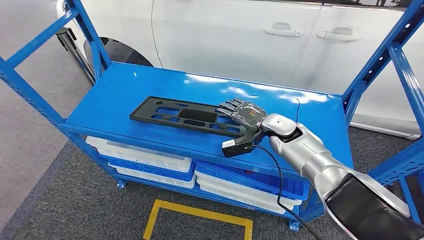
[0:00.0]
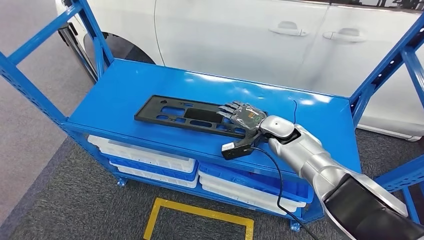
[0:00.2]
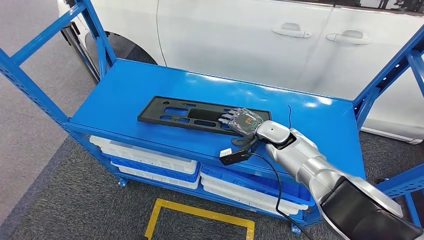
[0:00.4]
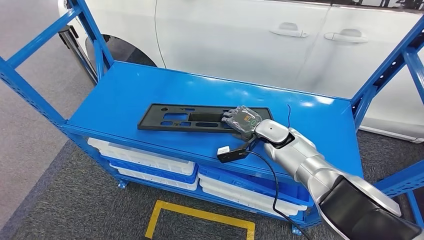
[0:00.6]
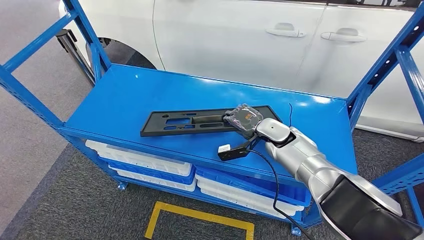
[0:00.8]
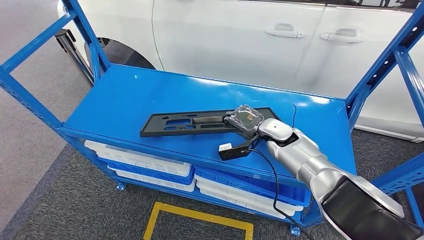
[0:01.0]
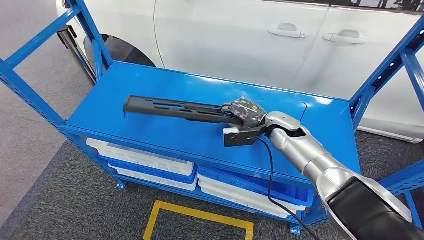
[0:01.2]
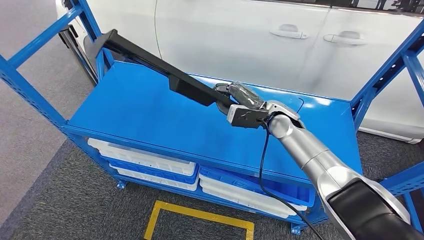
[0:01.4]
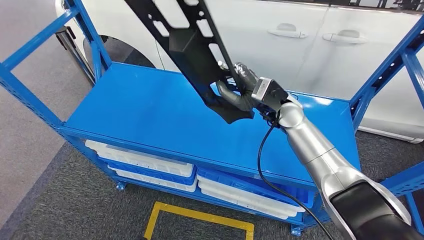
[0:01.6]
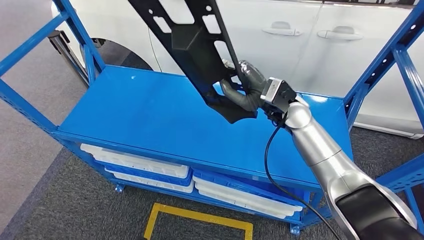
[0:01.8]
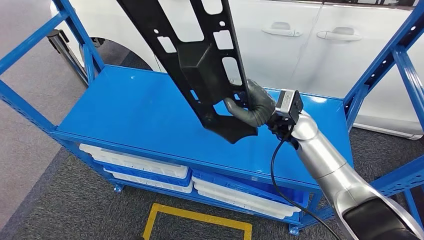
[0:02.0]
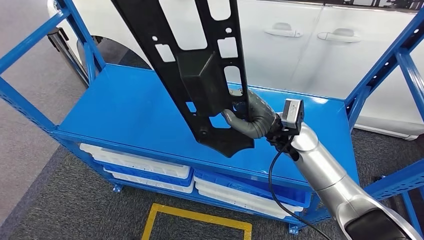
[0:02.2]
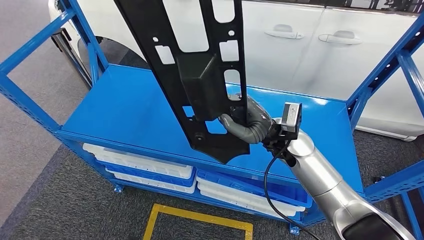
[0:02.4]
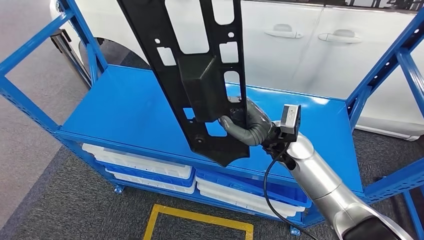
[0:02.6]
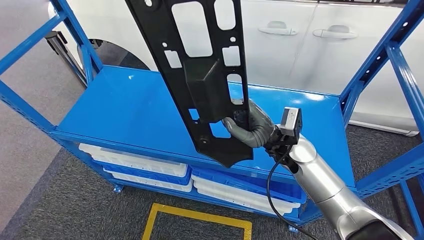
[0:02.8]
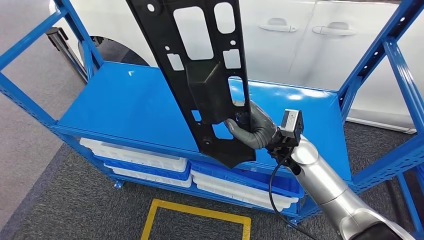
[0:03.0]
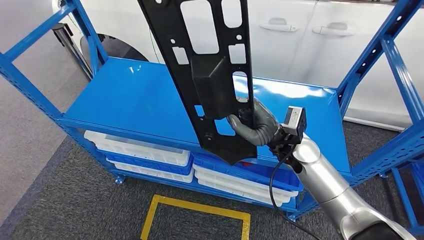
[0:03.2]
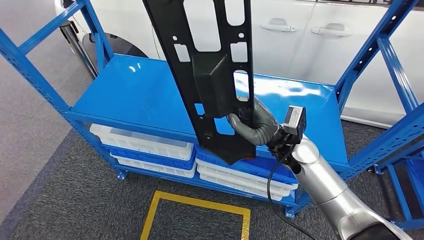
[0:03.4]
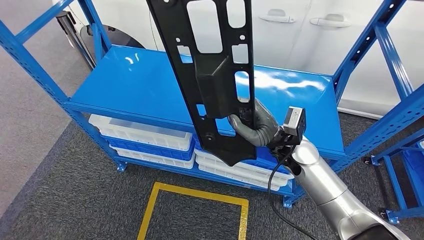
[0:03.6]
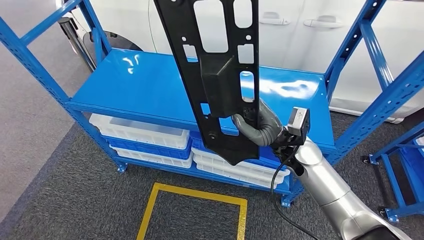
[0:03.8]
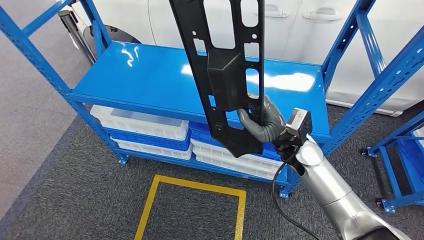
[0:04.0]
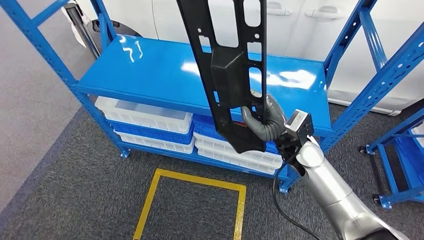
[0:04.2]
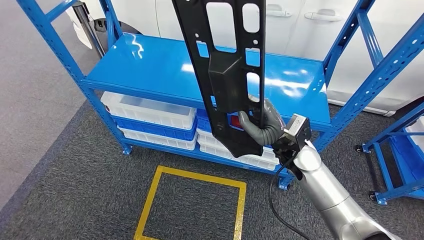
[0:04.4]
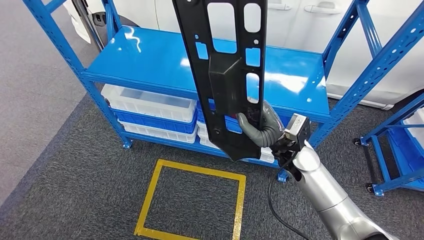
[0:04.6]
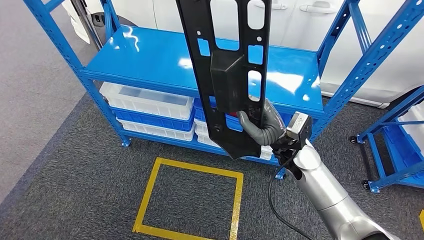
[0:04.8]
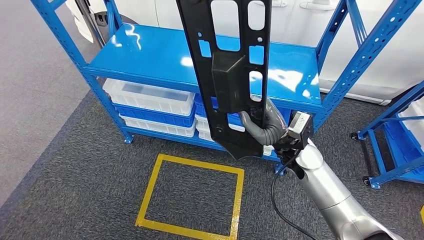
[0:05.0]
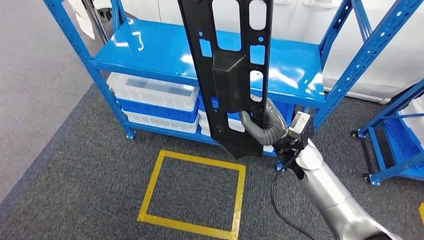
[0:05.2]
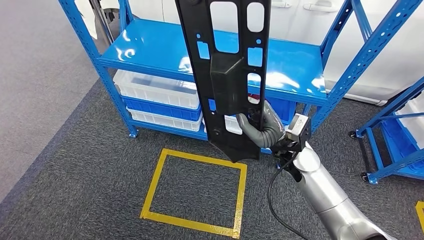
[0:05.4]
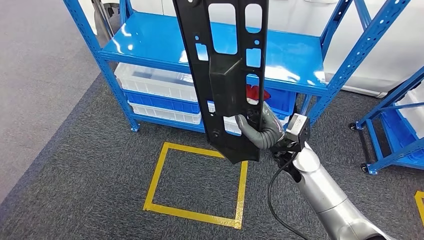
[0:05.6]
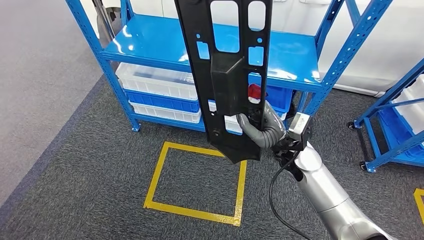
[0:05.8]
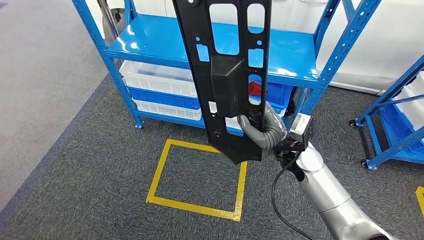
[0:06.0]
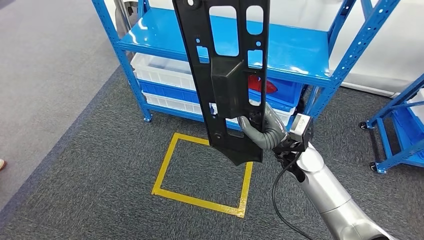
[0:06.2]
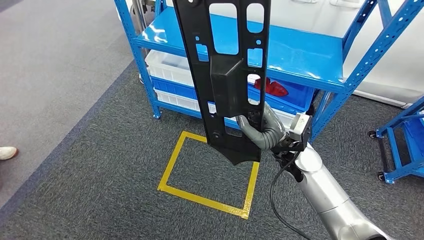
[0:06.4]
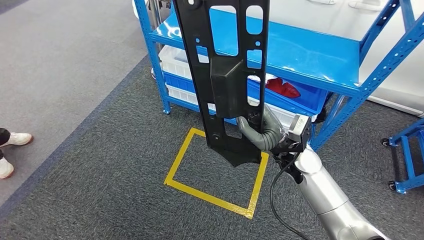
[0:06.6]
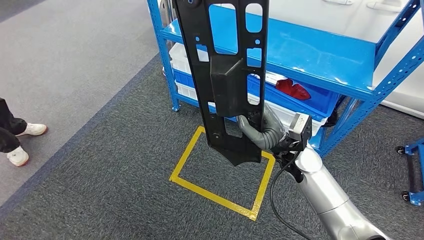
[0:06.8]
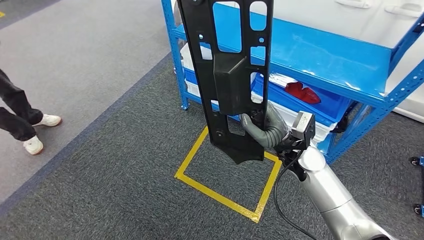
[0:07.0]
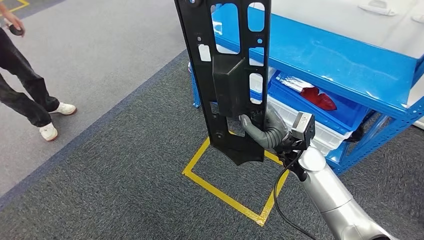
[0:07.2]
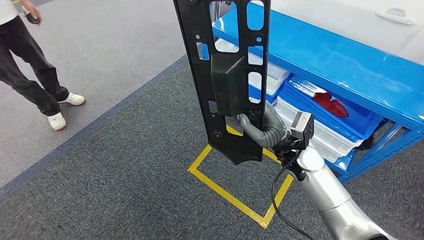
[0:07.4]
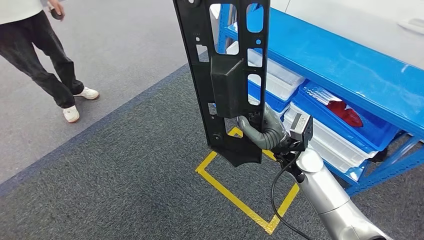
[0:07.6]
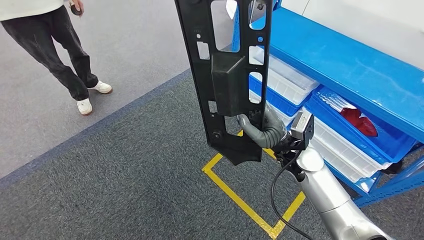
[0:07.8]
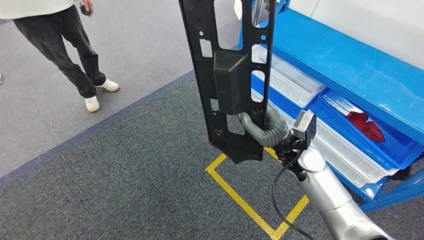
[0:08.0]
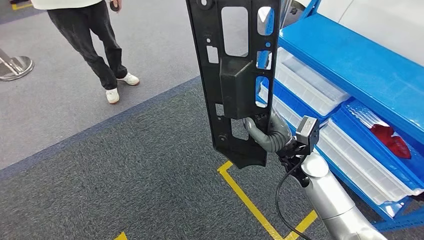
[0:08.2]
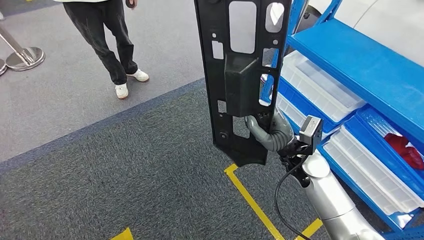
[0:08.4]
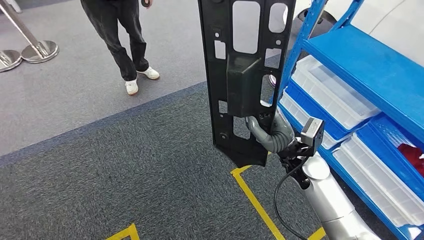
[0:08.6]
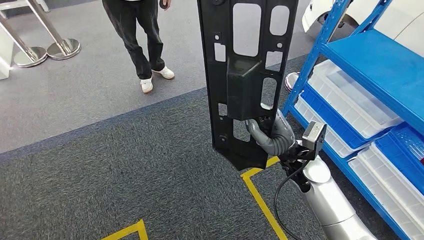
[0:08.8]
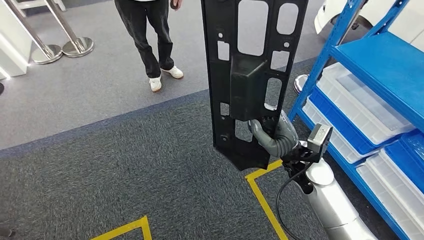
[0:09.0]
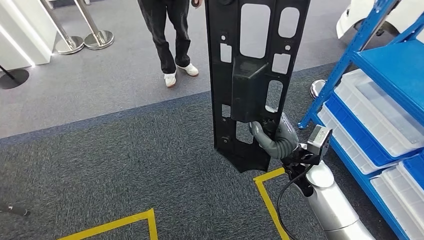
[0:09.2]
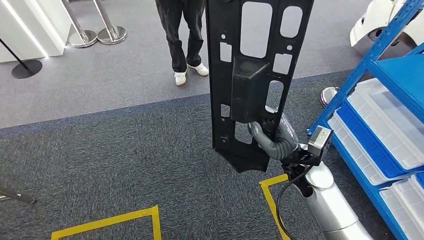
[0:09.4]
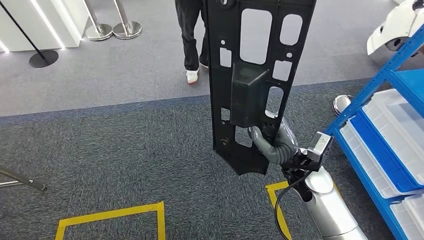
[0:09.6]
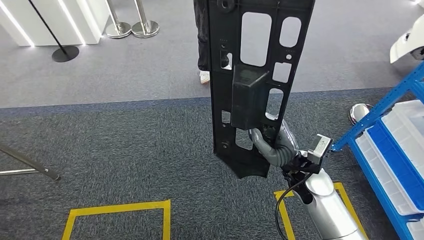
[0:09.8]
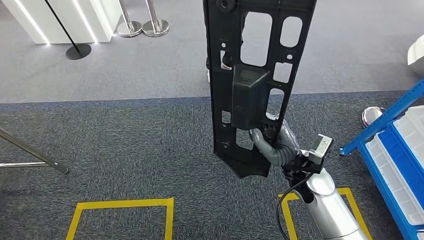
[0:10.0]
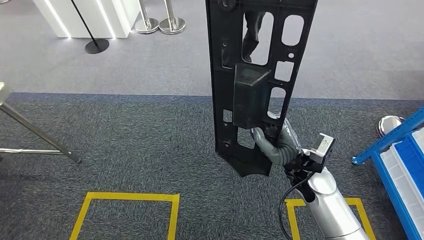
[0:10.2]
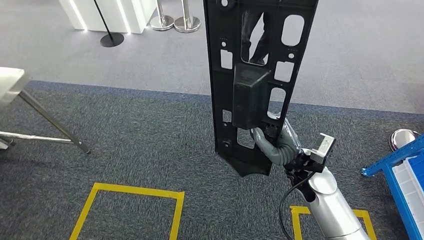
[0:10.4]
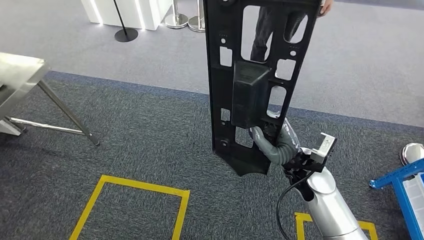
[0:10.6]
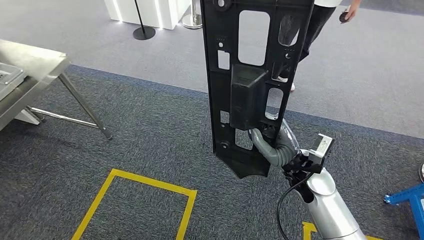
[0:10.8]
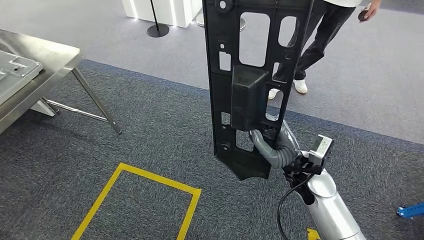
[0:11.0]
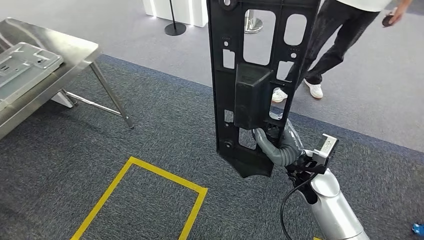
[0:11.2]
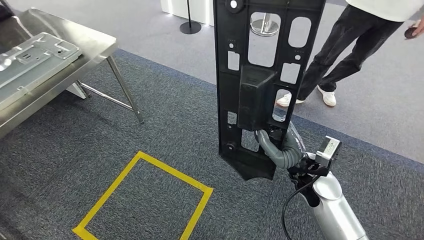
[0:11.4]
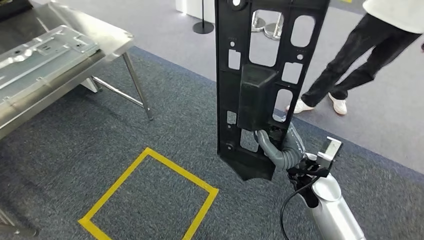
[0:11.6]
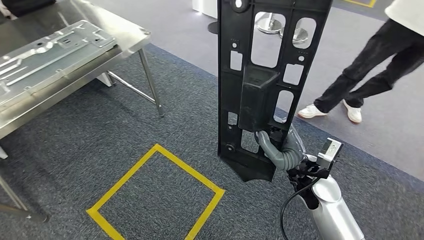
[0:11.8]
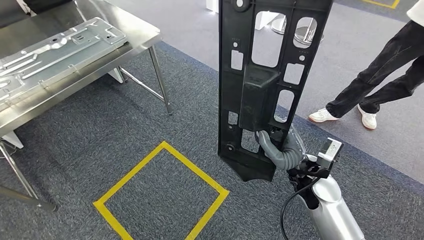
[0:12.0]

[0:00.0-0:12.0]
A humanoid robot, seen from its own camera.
Step, 0:00.0 to 0:04.2: Pick up the large material from the shelf.

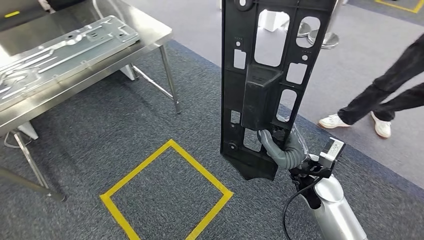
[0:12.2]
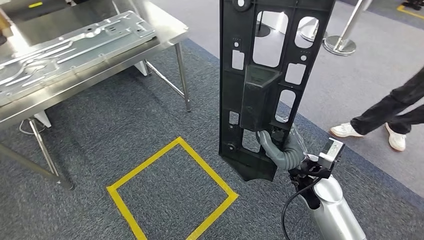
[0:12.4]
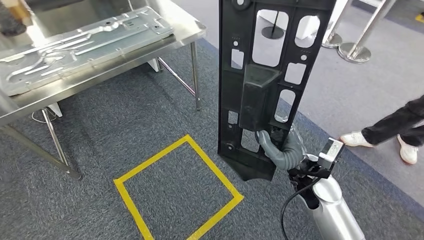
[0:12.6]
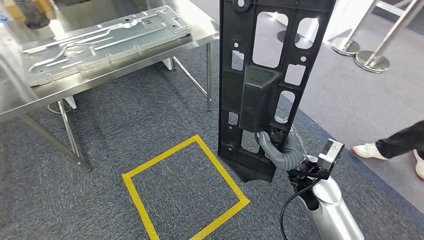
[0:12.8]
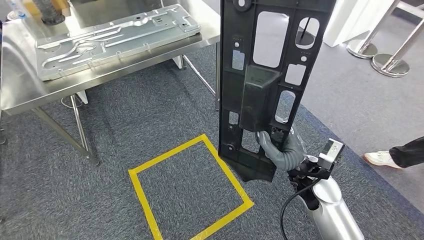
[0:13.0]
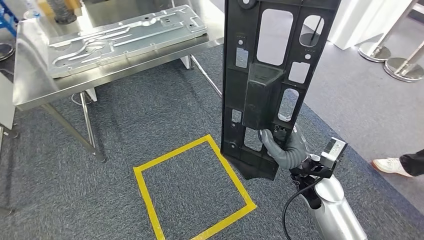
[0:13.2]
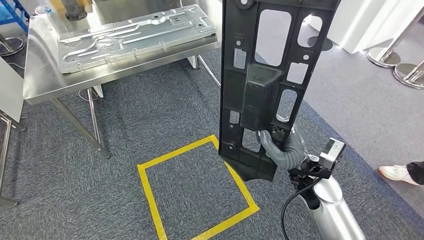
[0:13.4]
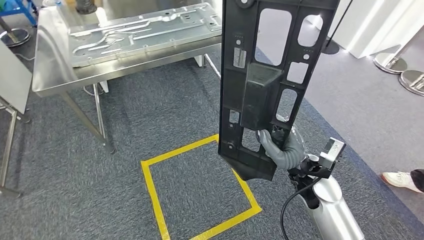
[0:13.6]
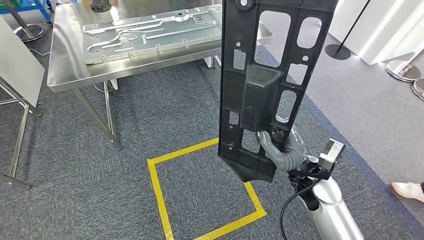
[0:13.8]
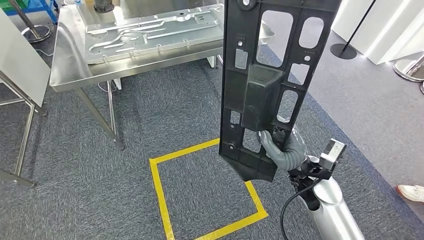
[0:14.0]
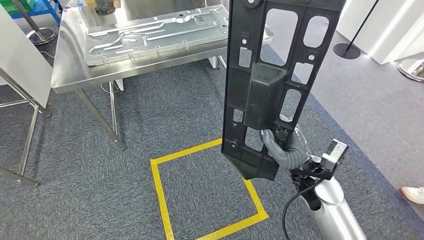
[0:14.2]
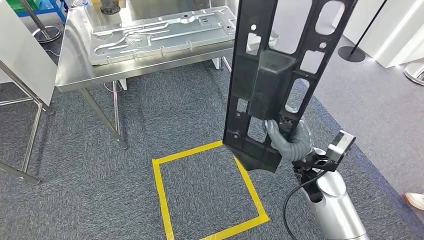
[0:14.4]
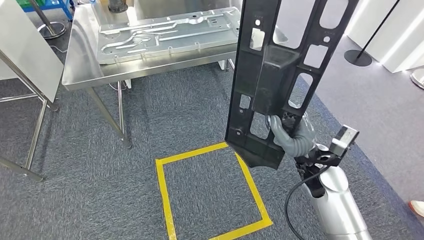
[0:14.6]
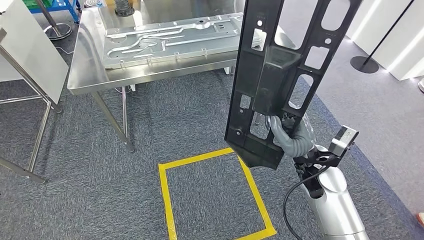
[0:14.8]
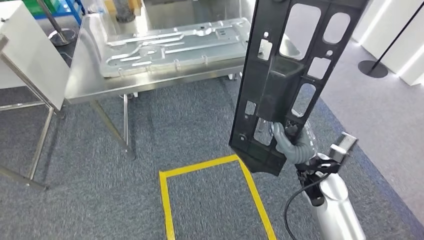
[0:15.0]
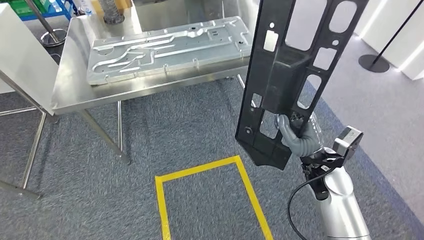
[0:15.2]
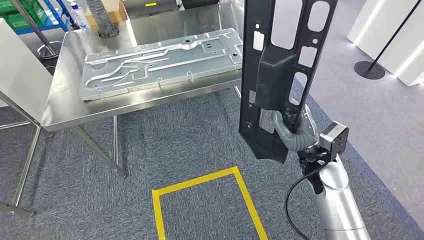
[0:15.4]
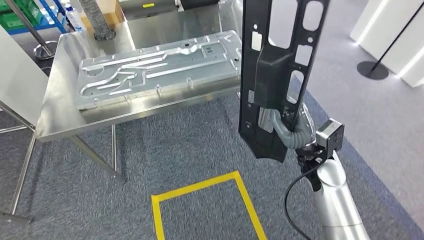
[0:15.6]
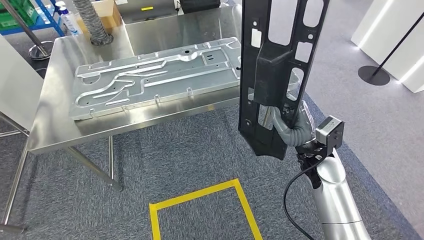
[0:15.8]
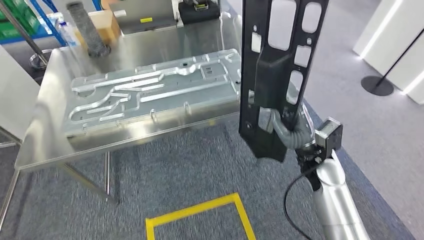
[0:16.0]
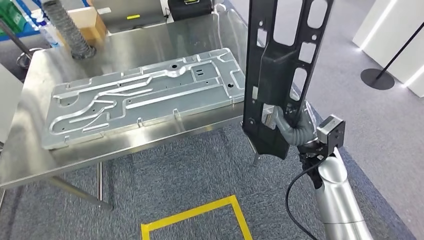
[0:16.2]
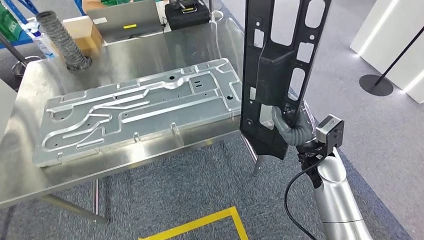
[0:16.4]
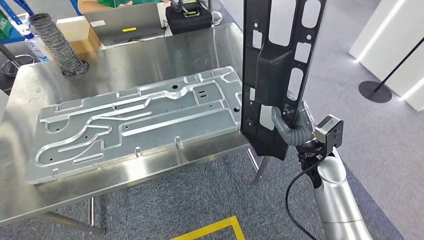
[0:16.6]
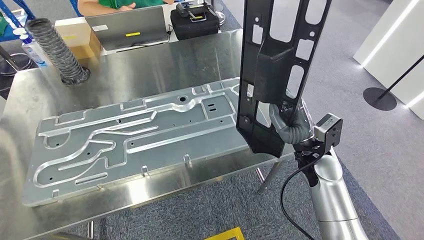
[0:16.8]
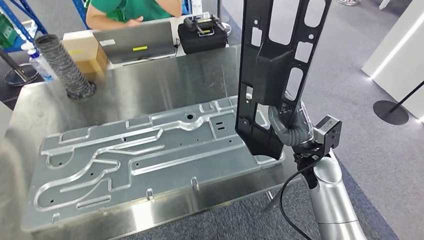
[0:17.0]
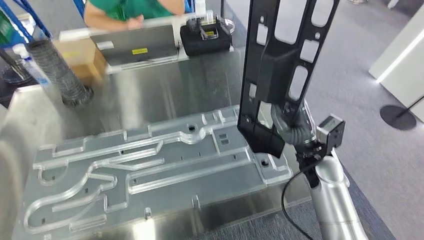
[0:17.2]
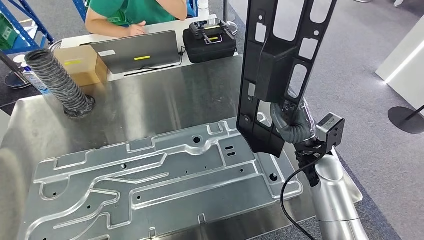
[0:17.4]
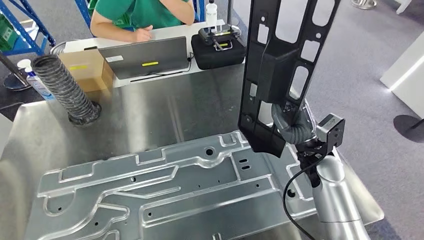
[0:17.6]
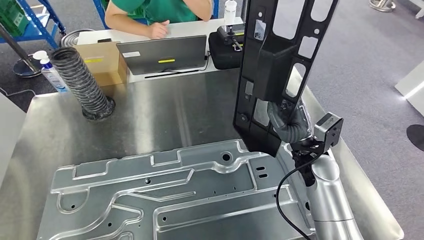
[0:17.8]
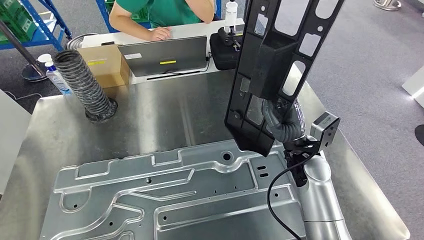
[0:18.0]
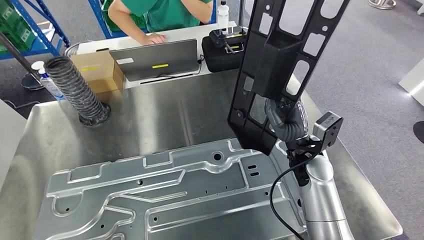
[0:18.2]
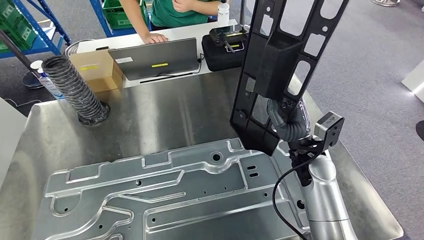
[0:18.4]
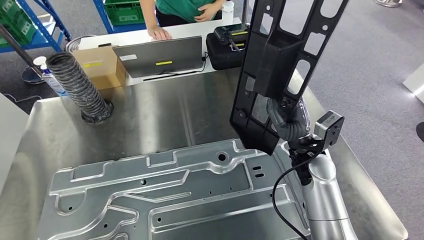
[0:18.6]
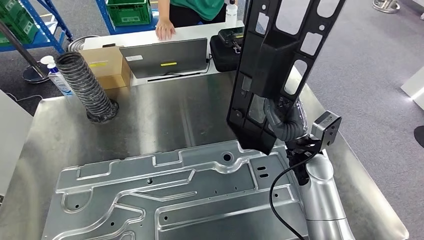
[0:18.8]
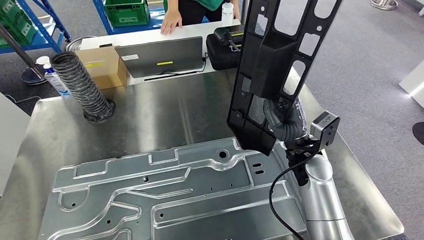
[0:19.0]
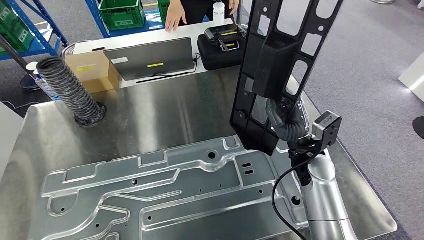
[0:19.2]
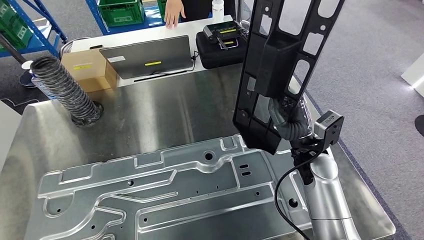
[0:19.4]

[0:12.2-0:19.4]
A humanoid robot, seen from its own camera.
Step, 0:12.2 to 0:17.8: Move the large material to the workbench.
